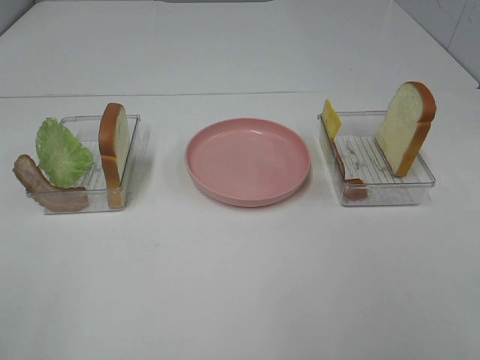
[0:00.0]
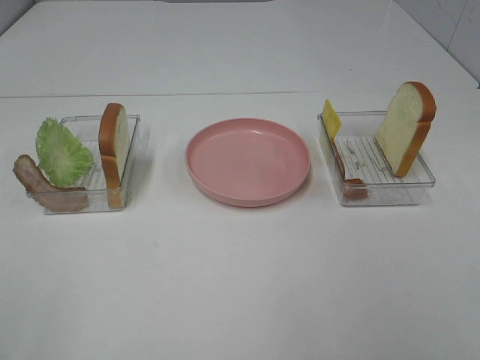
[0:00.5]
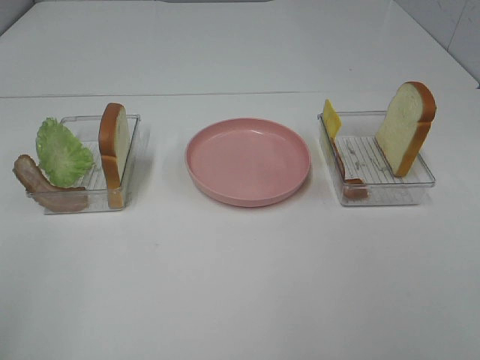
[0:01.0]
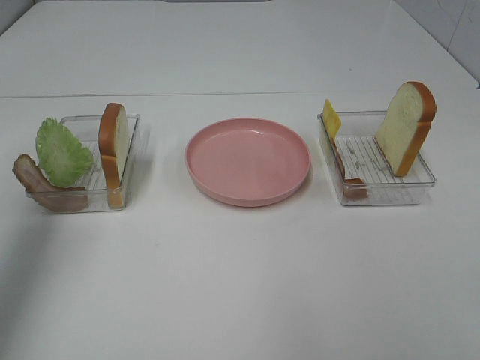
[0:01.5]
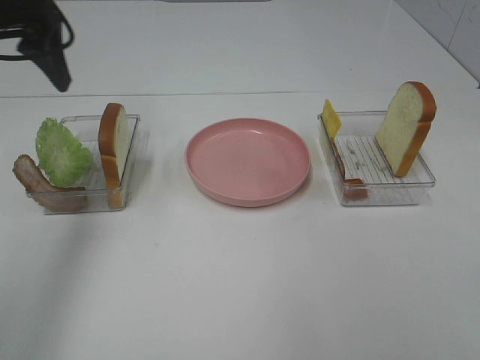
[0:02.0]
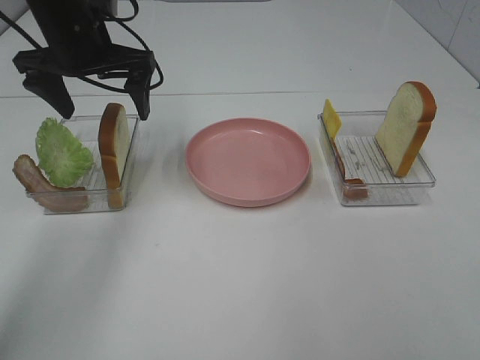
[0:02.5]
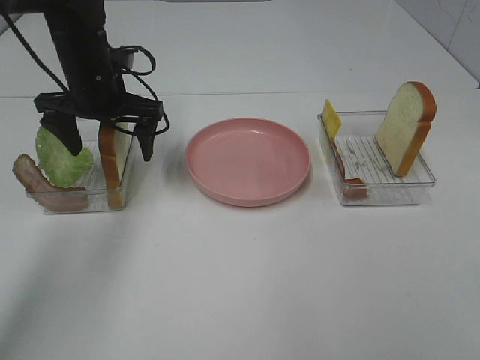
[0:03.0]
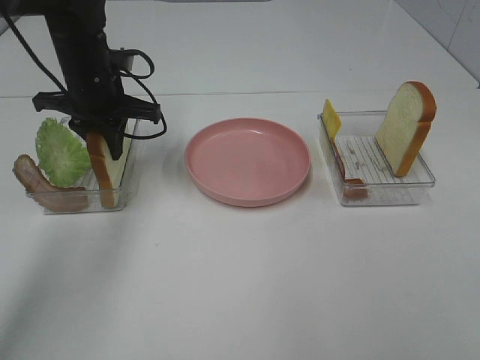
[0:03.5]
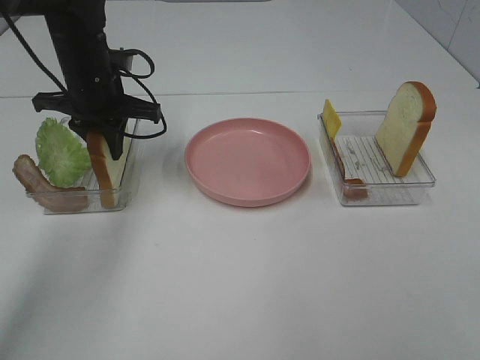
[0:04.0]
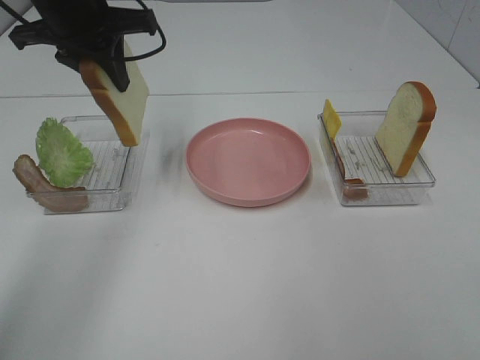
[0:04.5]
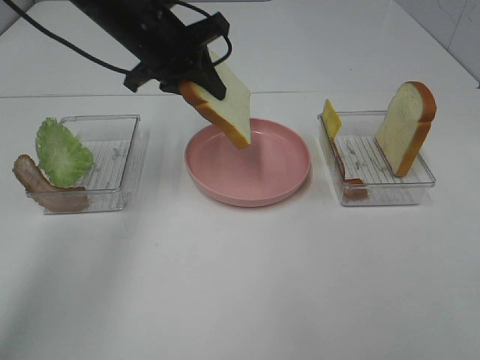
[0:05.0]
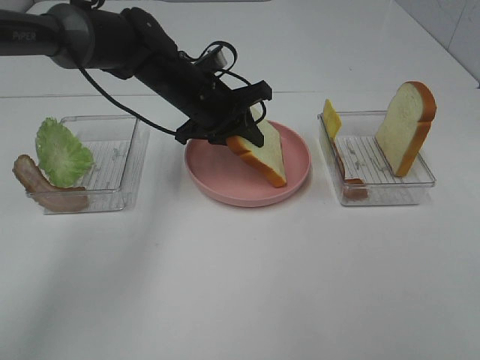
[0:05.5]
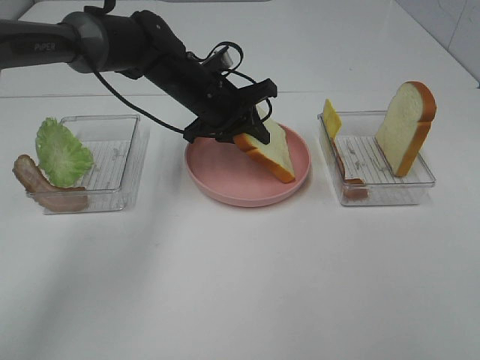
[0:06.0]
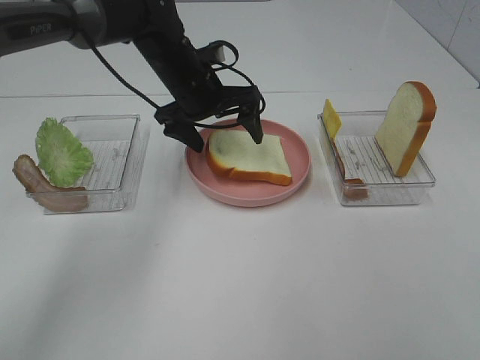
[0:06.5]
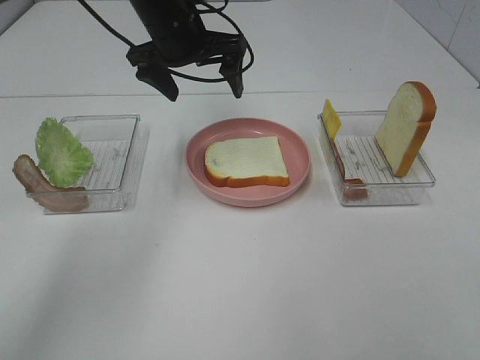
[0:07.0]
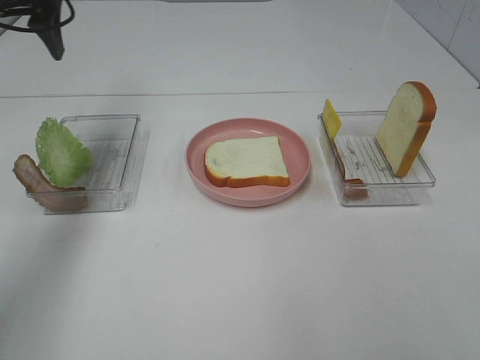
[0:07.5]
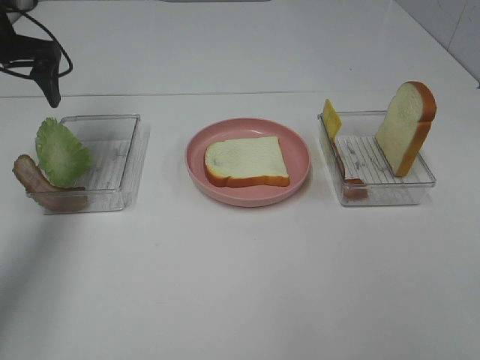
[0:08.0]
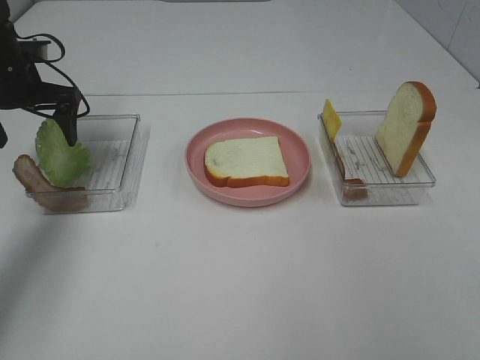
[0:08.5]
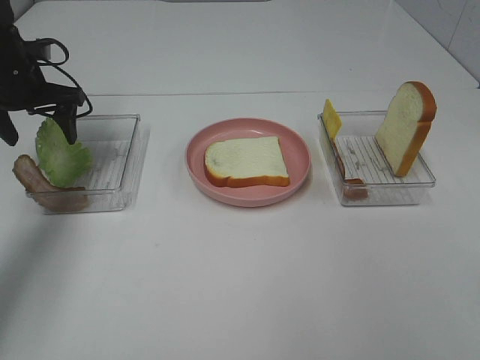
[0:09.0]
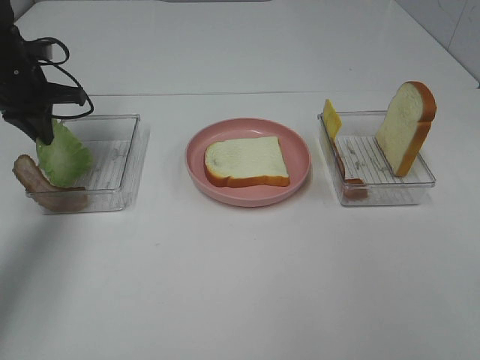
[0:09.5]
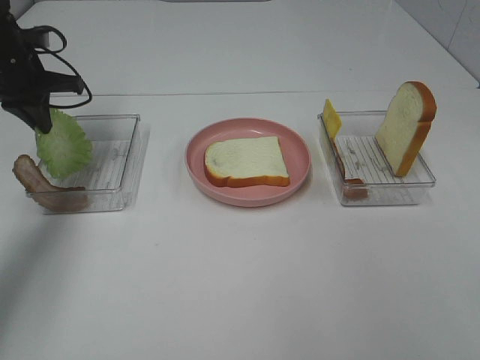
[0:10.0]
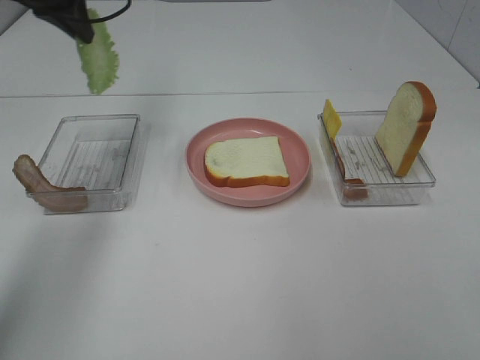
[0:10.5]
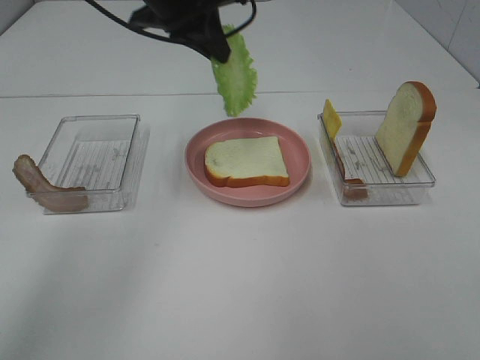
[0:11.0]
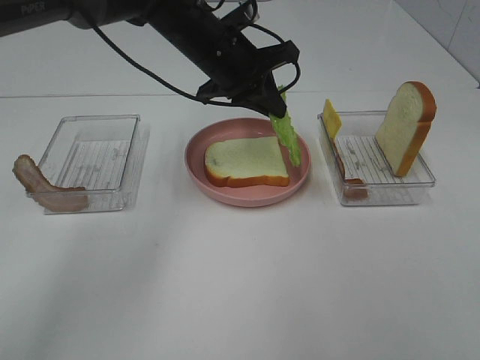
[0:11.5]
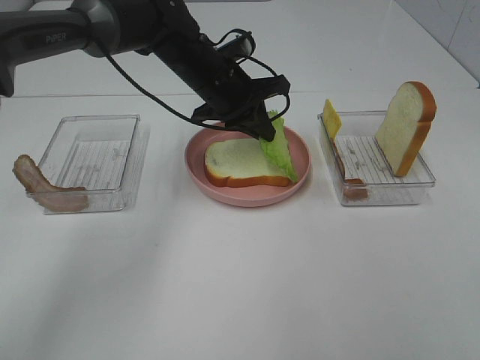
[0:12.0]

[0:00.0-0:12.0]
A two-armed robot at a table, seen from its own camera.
Task of the whole recording: Make sandwiches.
Step, 0:00.0 to 0:03.5: Left hand:grab the bread slice.
Step, 0:04.0 to 0:06.5: Left hand:place the bread slice on the plate.
Step, 0:07.0 to 0:10.0: Left hand:grab the lettuce slice.
0:00.0 to 0:02.0: The left gripper is displaced forward by about 35 cm.
0:02.0 to 0:04.0: The left gripper goes some 15 cm downward, forward and to the right, and closes.
0:04.0 to 0:06.0: The left gripper shifts about 15 cm to the right, and reaches about 10 cm upward, then returns.
0:06.0 to 0:08.0: The left gripper shifts some 25 cm to the left and upward, and opens up.
0:08.0 to 0:10.0: The left gripper closes.
0:10.0 to 0:12.0: The left gripper heads to the right, covering some 25 cm.

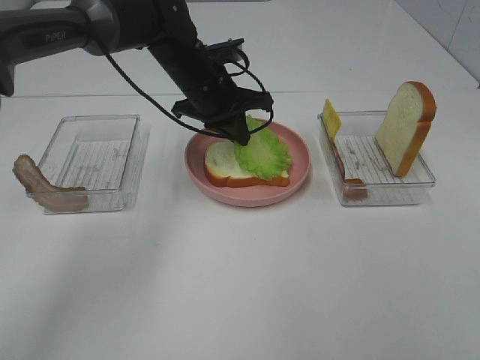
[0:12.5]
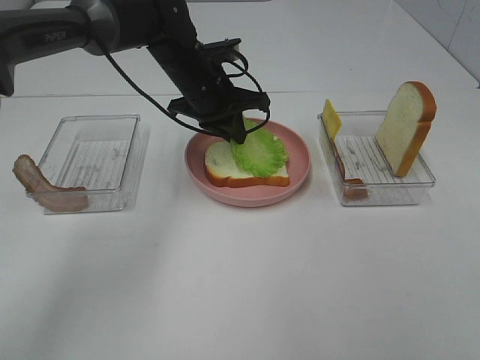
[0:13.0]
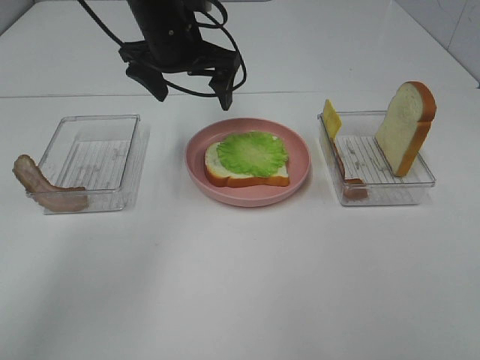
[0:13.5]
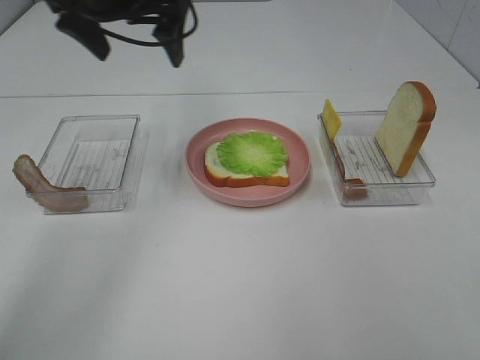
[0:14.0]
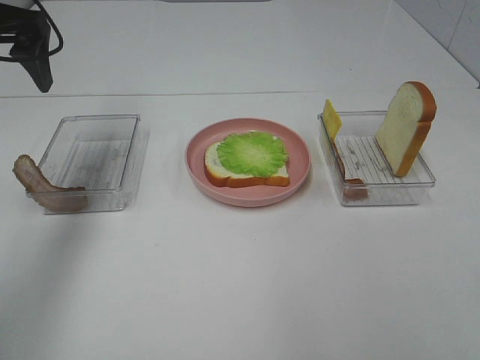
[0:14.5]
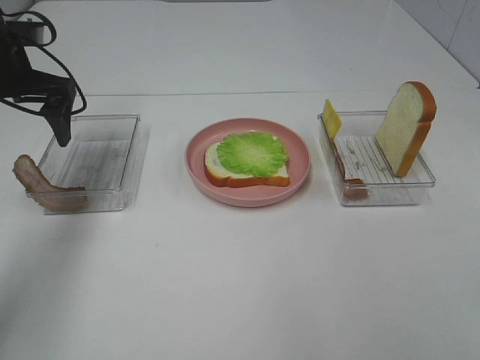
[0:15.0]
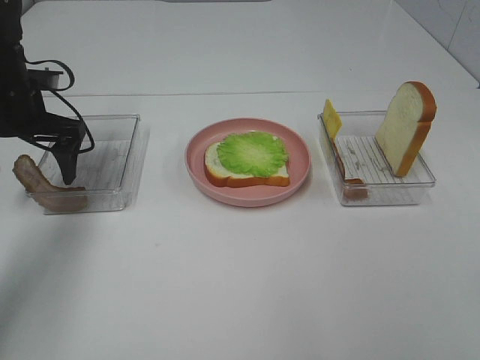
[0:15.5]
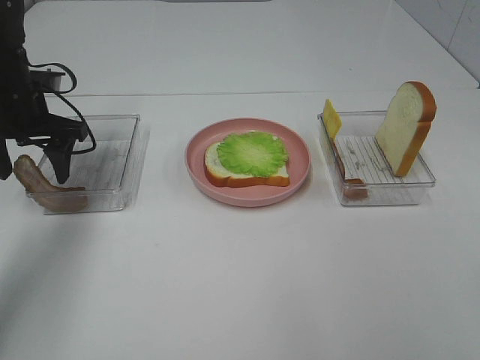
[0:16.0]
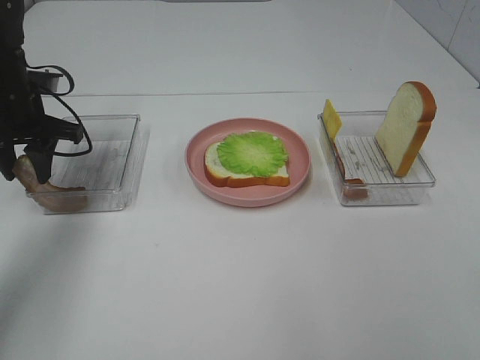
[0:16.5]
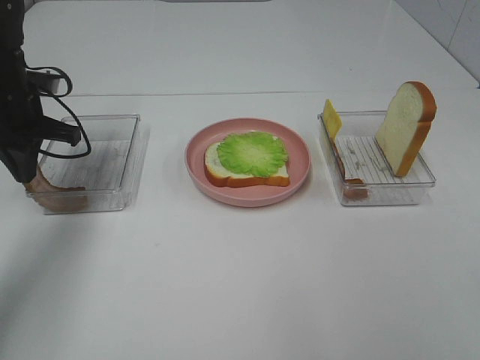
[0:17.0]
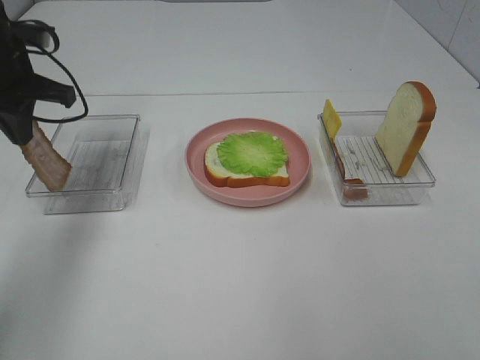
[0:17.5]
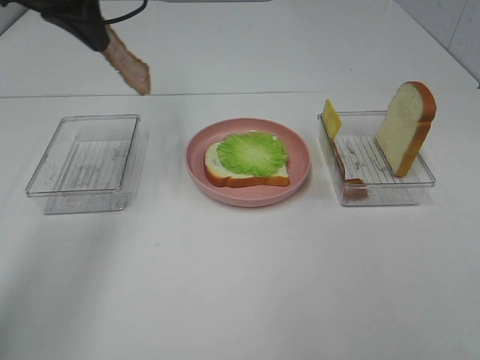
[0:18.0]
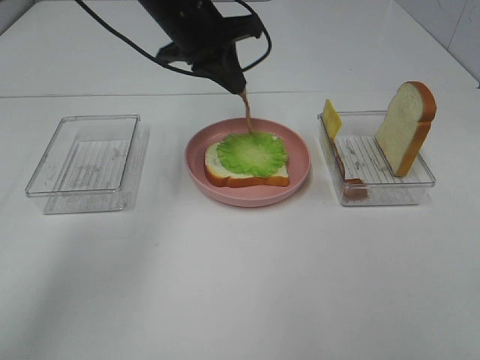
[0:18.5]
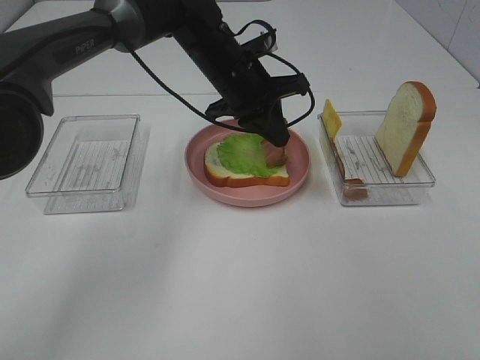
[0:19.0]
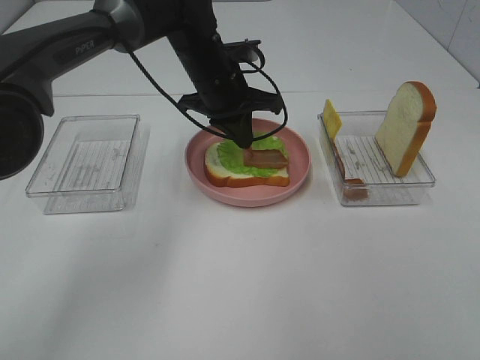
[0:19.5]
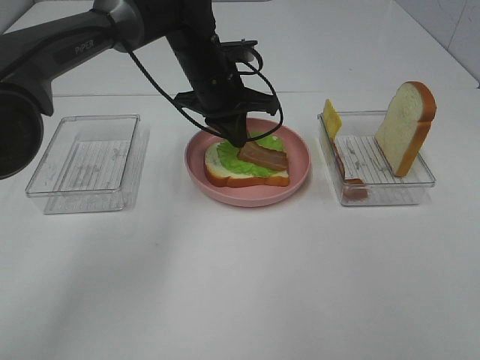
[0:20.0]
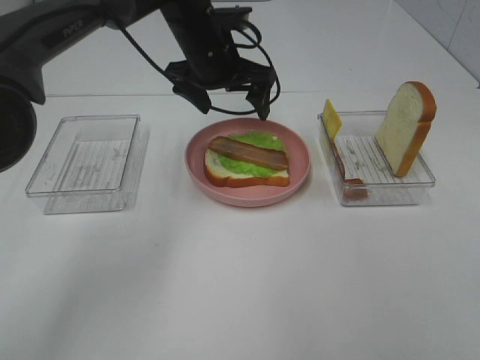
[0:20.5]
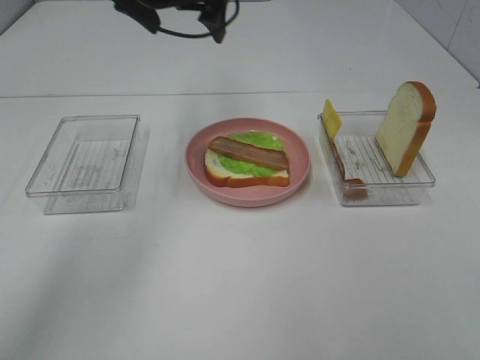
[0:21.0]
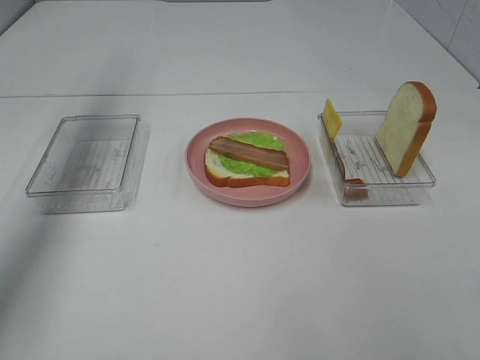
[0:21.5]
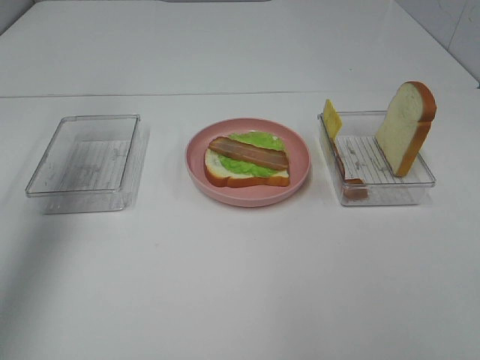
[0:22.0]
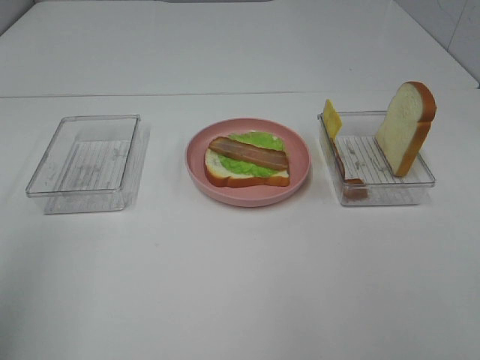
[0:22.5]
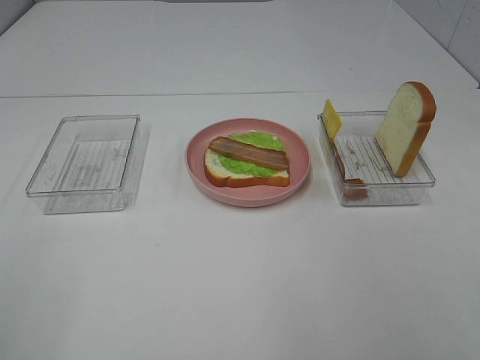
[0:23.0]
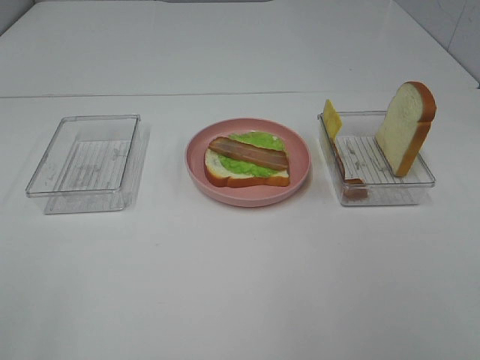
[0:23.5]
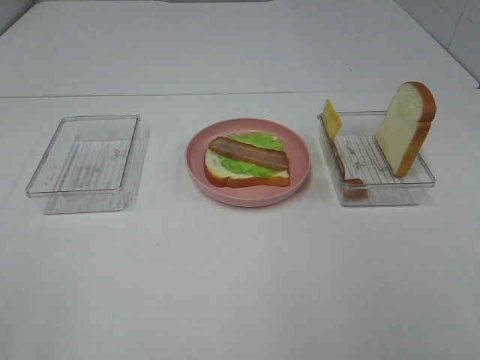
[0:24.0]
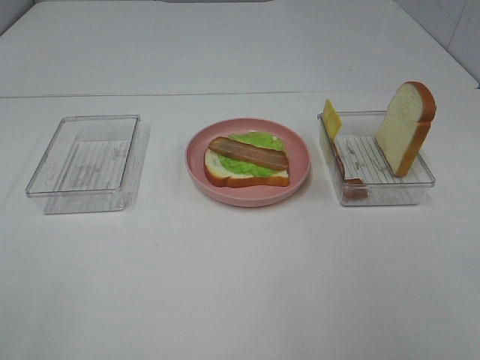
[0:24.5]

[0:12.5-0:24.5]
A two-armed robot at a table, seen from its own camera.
Task of the whole recording: Make sandwiches.
Step, 0:13.5 to 0:17.0: Left hand:grab the bacon.
Step, 0:17.5 to 0:20.0: Left hand:place bacon on lettuce slice.
0:12.5 to 0:14.5: The left gripper travels to the left and upward by roughly 25 cm, and opens up.
0:14.5 to 0:16.5: The left gripper travels downward by some 15 cm, and closes up.
0:16.5 to 0:18.5: The left gripper heads to the right, covering about 20 cm, and closes its fingers.
0:18.5 to 0:20.5: The left gripper opens its fingers.
0:20.5 to 0:22.5: The left gripper heads backward, to the left and upward, covering about 50 cm.
0:22.5 to 0:24.5: The left gripper moves backward and downward, approximately 15 cm.

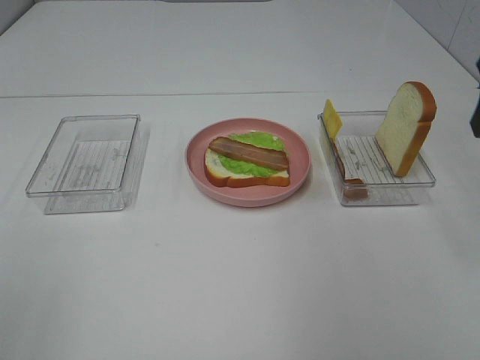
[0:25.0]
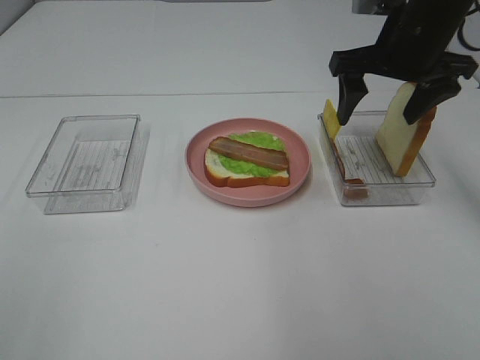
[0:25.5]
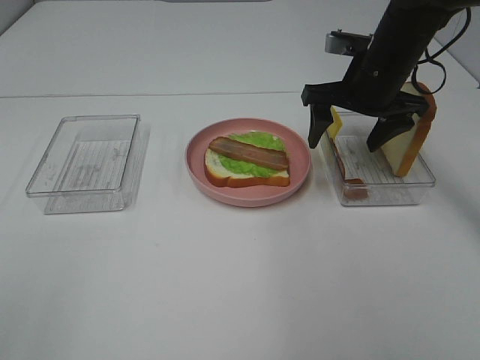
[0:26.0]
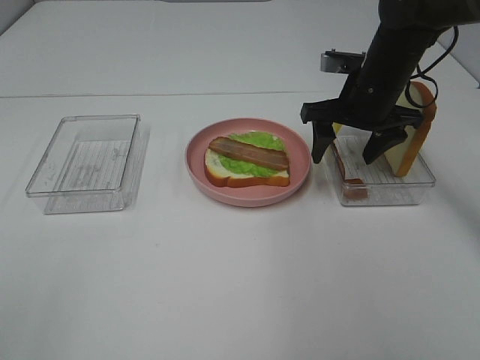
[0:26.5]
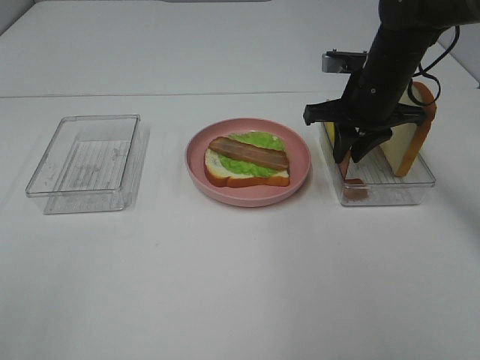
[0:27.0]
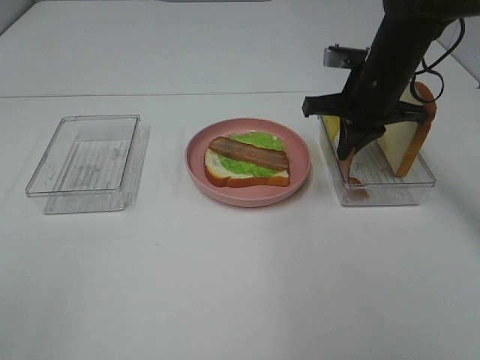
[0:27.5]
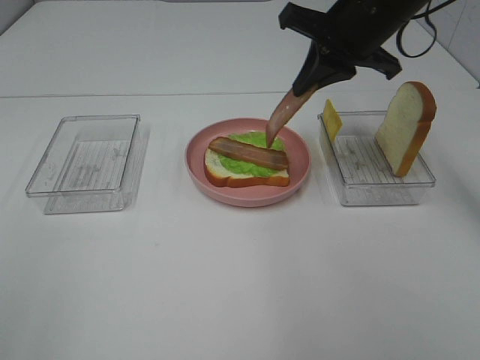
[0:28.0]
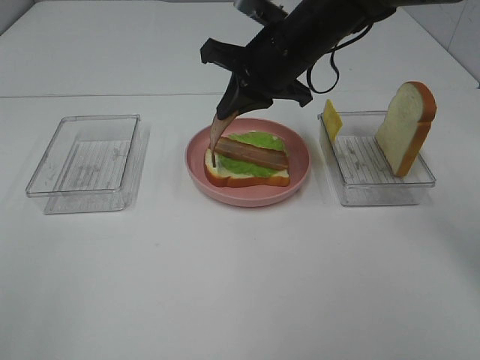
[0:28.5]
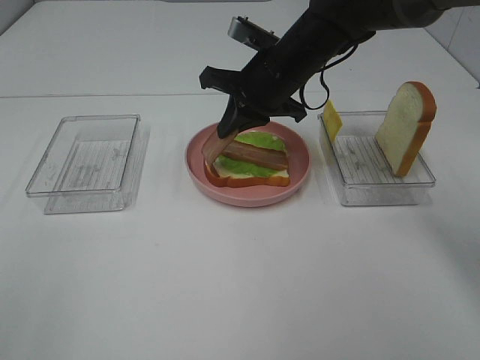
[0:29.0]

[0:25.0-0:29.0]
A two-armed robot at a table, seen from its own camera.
Task of the whole recording: Make sandwiches.
Step, 0:25.0 to 0:27.5: Right hand:grab the bacon.
0:25.0 to 0:27.0: The right gripper shifts approximately 25 cm downward, forward and to the left, and closes its fingers.
0:27.0 to 0:29.0: The right gripper heads to the left, covering some 10 cm.
